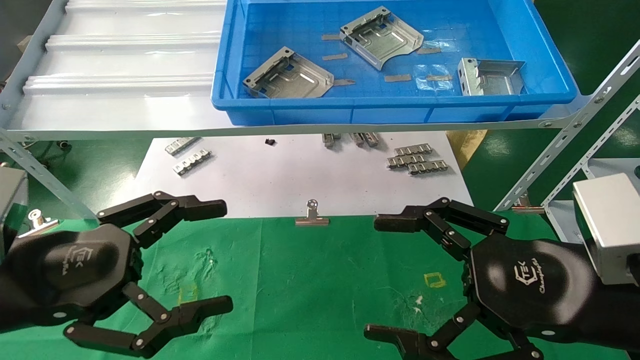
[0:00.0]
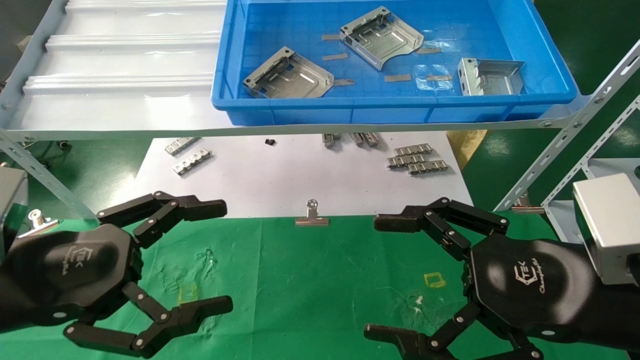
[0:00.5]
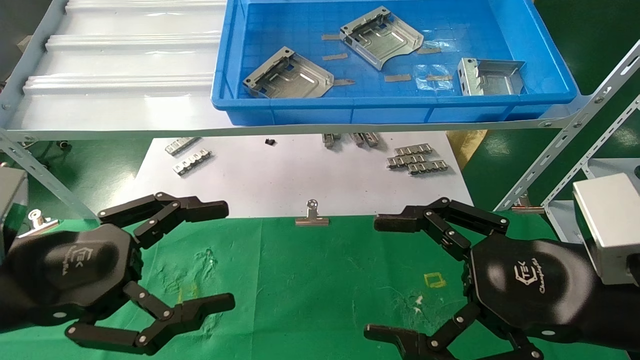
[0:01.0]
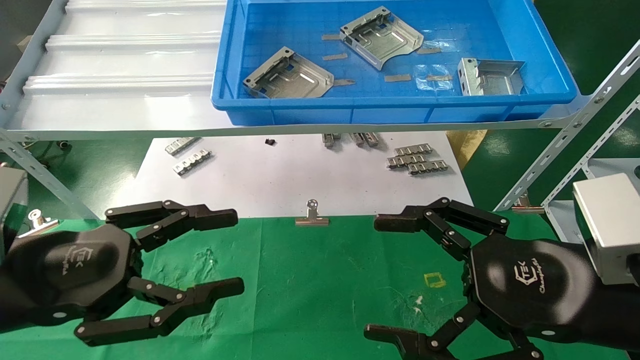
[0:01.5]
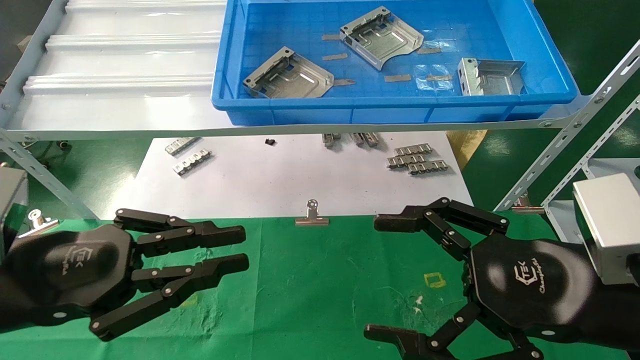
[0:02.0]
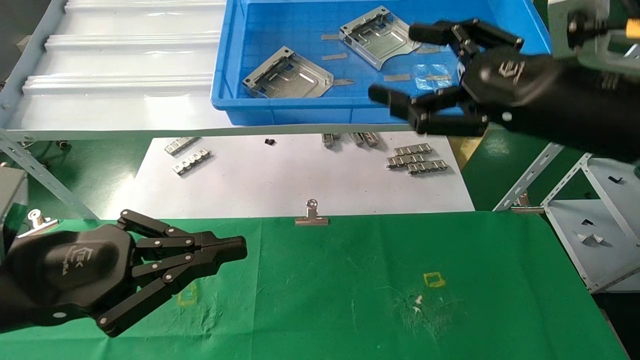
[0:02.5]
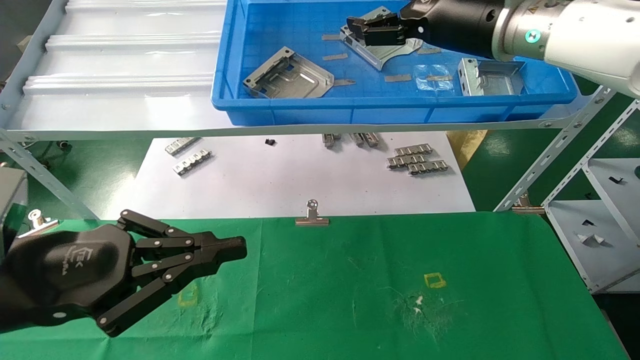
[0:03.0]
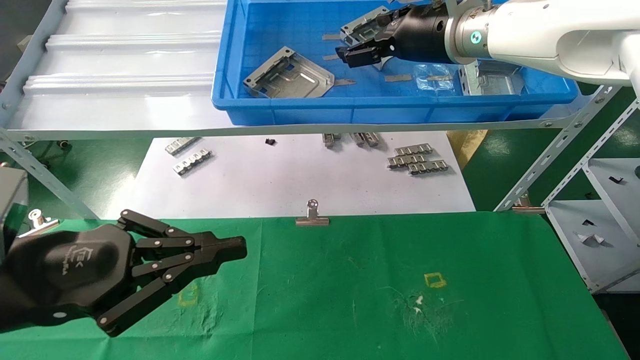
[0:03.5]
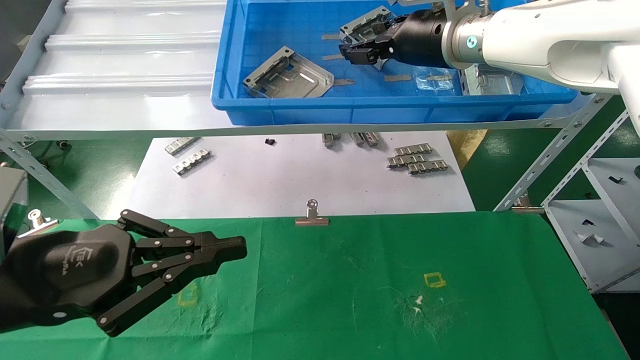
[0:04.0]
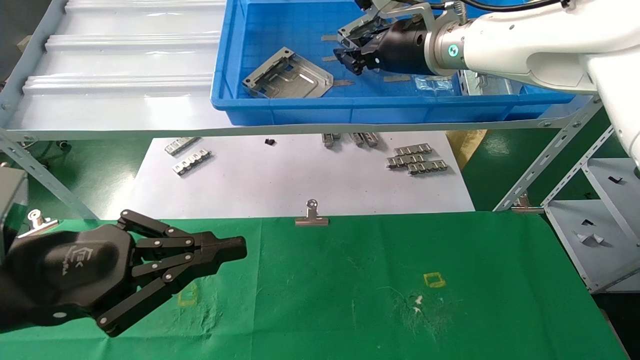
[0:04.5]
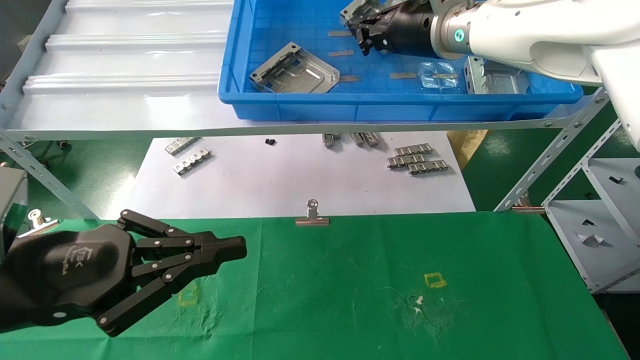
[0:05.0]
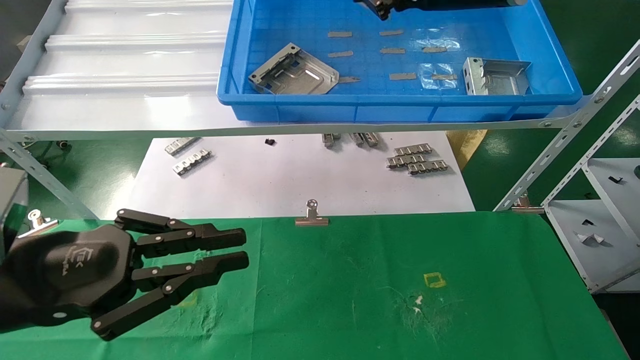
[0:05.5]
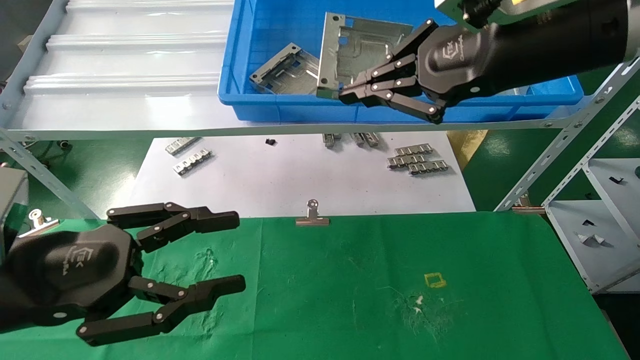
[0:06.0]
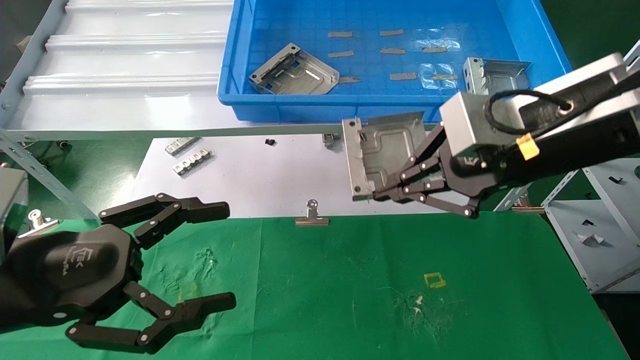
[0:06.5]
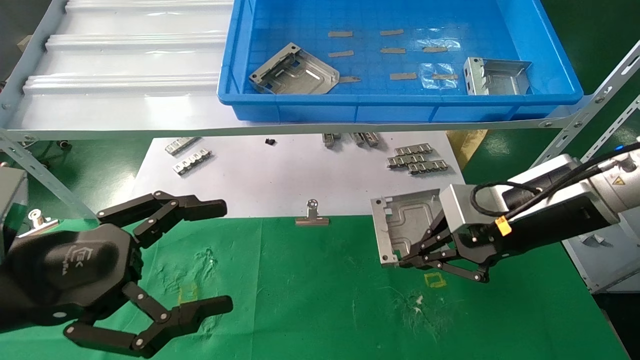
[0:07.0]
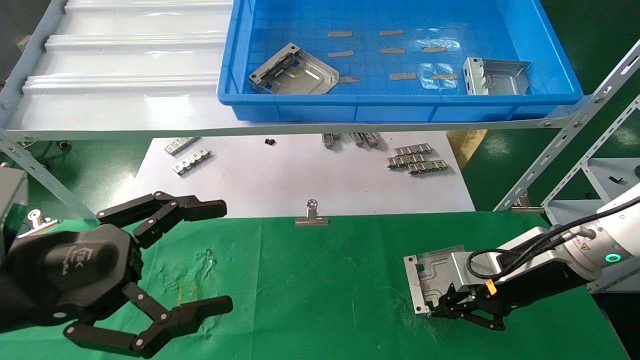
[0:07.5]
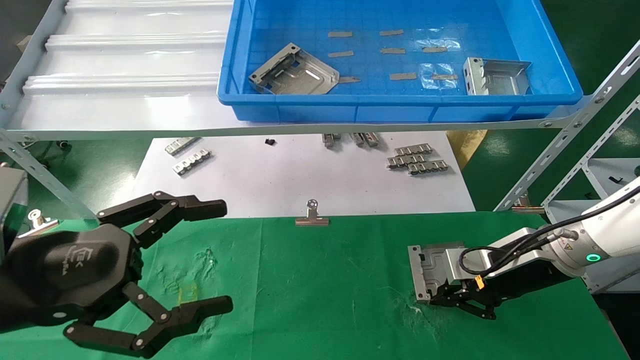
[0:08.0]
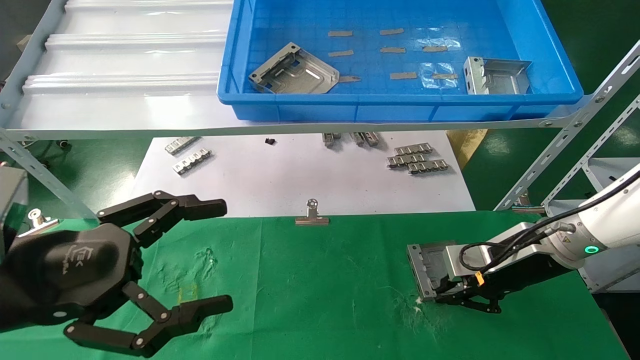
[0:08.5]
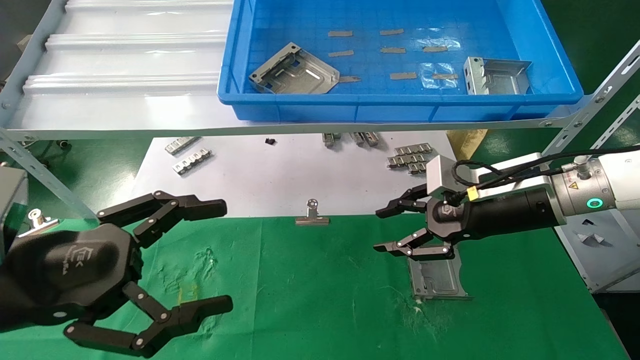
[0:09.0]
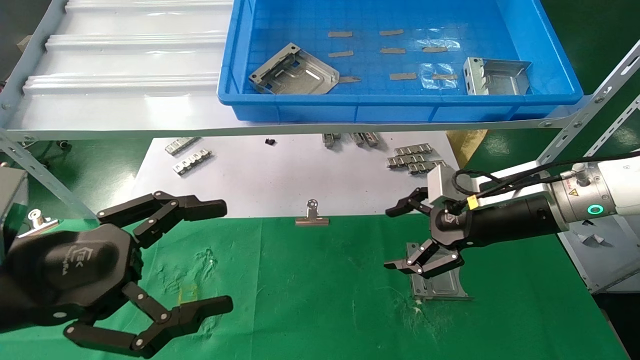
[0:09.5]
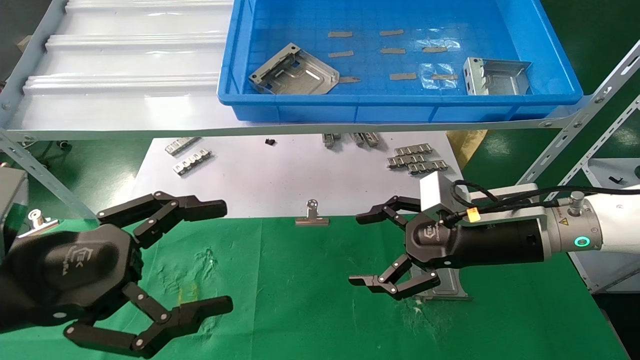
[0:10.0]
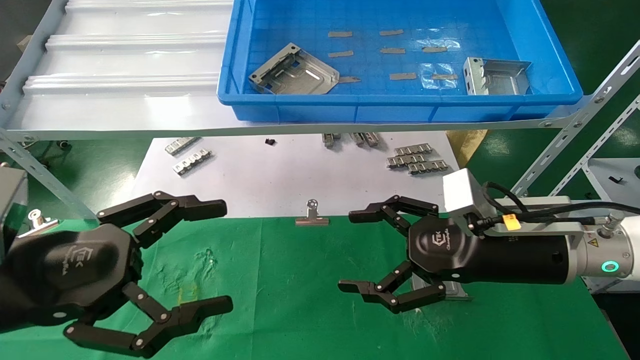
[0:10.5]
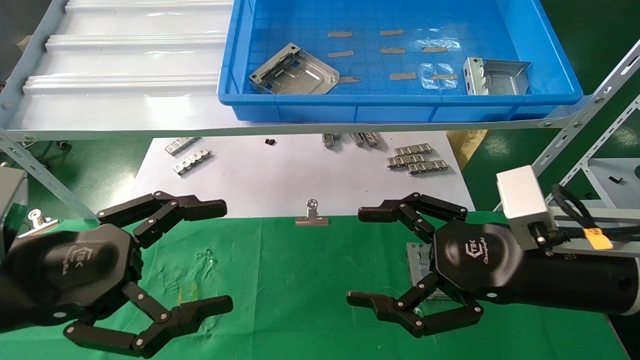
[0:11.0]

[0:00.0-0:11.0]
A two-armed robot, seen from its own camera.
Task of the whole recording: use the mechanical arm to pick up the parts and place them on the table.
Step, 0:02.5 to 0:05.0: Pick up the hard drive bracket from the feeding area.
Step, 0:05.5 to 0:08.5: Place the hard drive bracket into the box.
0:00.0 to 0:02.0: The left gripper closes its fingers.
0:02.0 to 0:03.5: The right gripper shifts approximately 30 cm forward and upward.
0:03.5 to 0:05.5: The right gripper heads backward, covering approximately 5 cm, and closes its fingers.
0:05.5 to 0:07.5: The left gripper opens up. The right gripper travels downward and to the right by approximately 30 cm.
0:07.5 to 0:09.0: The right gripper ends up approximately 5 cm from where it was, and opens.
0:09.0 to 0:11.0: The right gripper is displaced backward by about 10 cm, and opens up.
